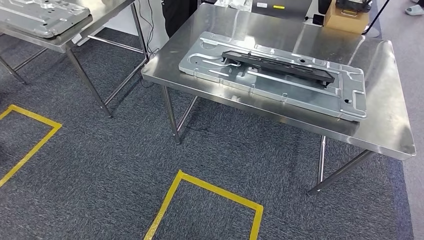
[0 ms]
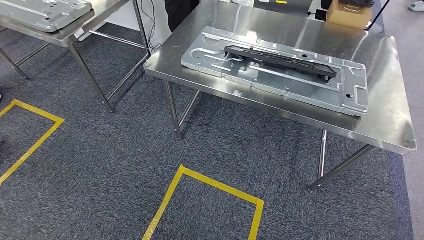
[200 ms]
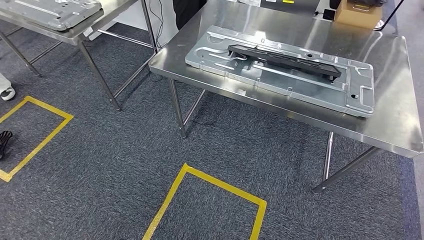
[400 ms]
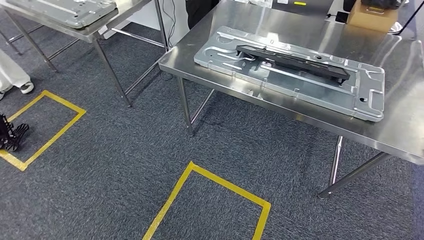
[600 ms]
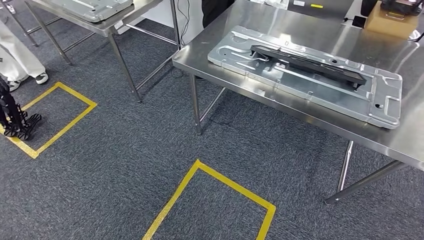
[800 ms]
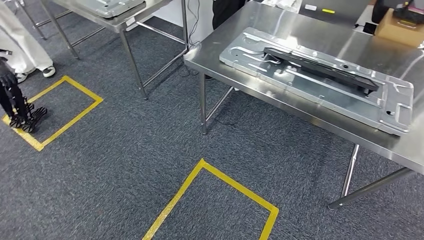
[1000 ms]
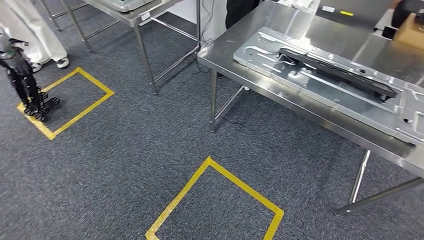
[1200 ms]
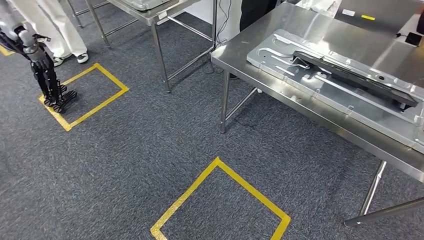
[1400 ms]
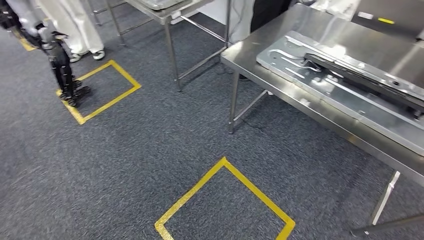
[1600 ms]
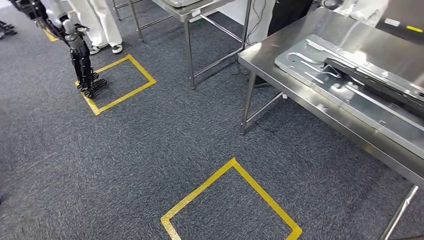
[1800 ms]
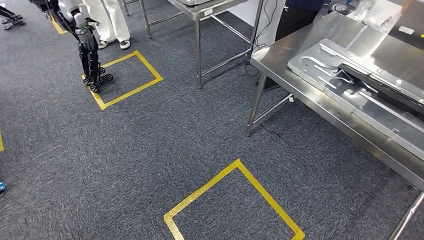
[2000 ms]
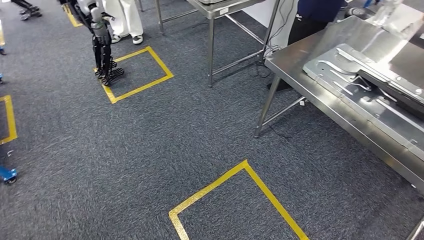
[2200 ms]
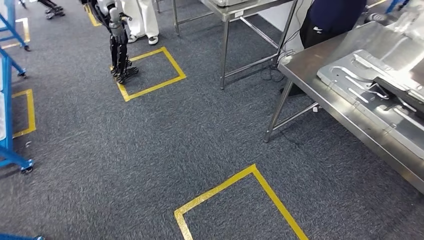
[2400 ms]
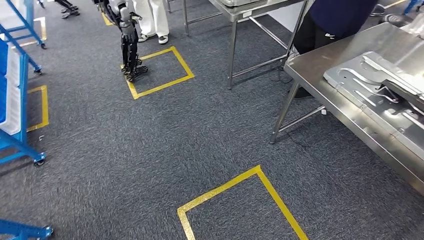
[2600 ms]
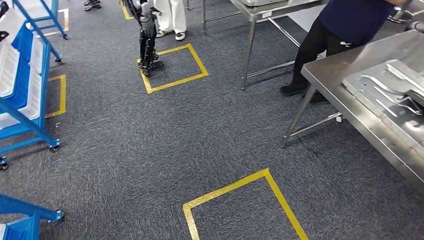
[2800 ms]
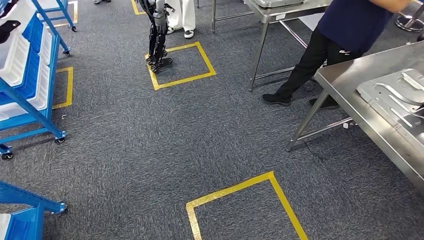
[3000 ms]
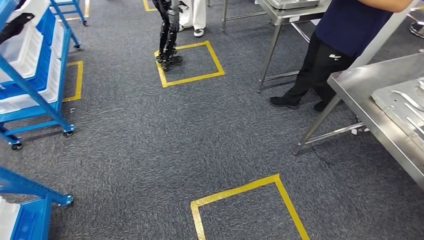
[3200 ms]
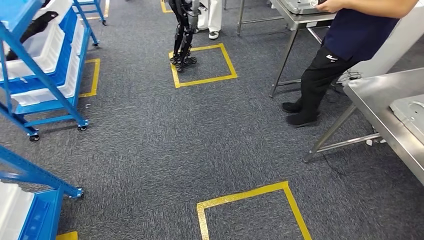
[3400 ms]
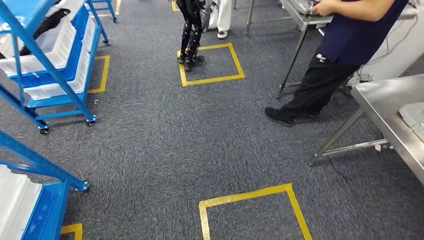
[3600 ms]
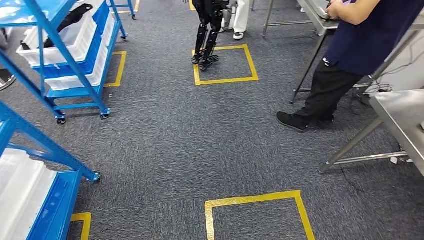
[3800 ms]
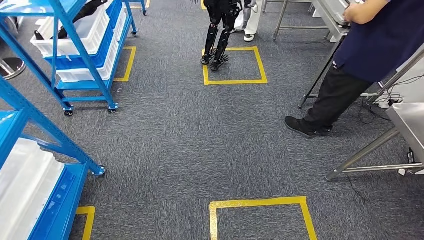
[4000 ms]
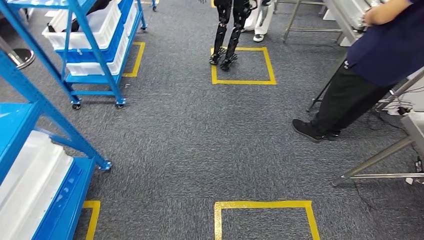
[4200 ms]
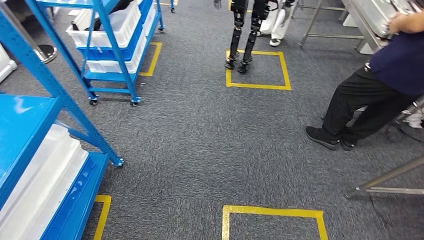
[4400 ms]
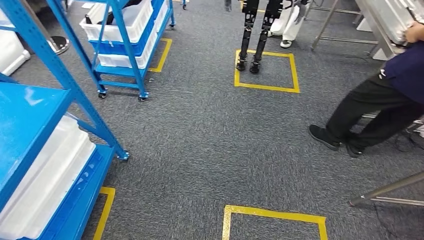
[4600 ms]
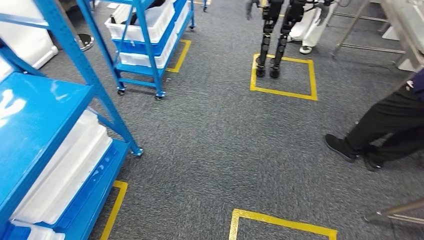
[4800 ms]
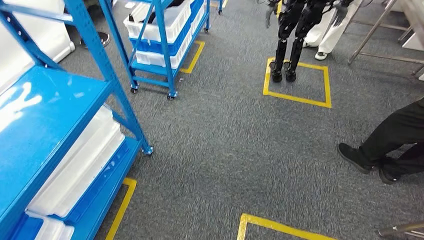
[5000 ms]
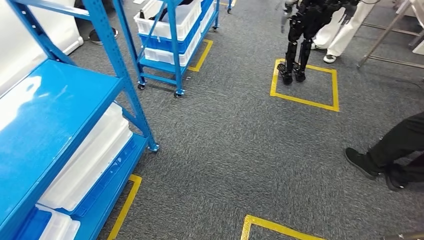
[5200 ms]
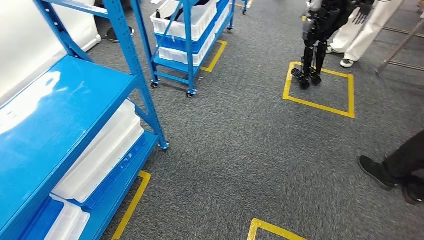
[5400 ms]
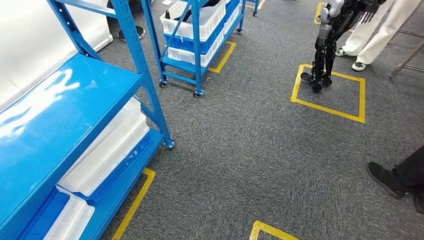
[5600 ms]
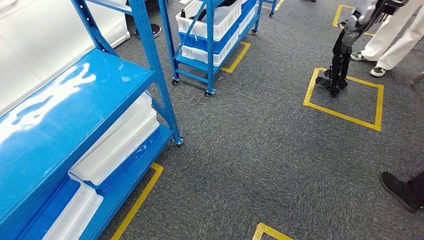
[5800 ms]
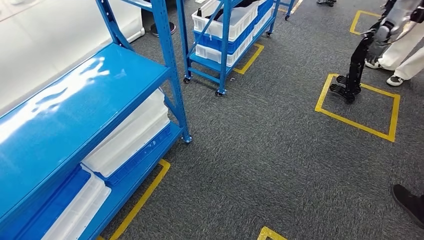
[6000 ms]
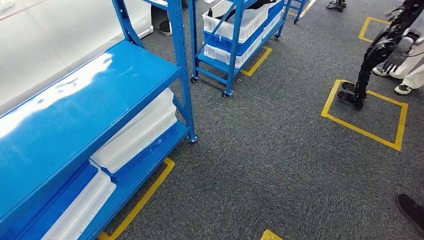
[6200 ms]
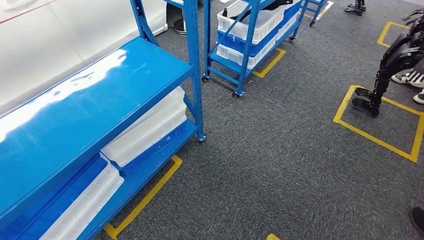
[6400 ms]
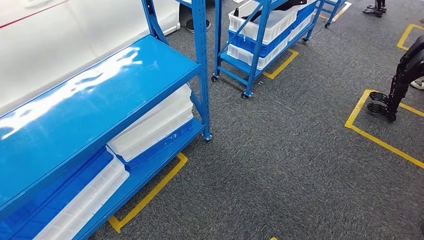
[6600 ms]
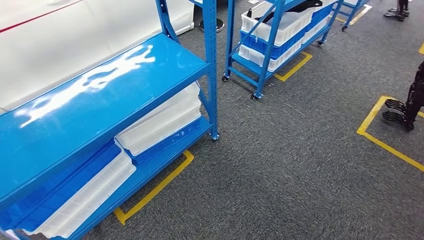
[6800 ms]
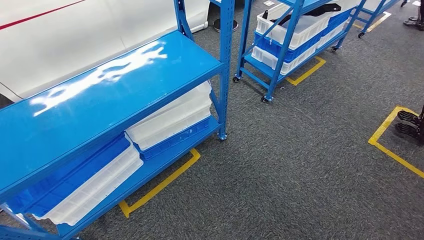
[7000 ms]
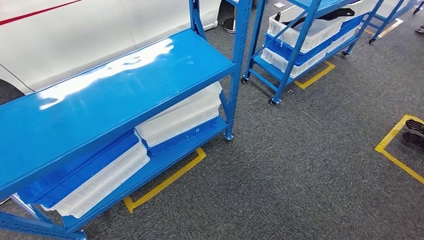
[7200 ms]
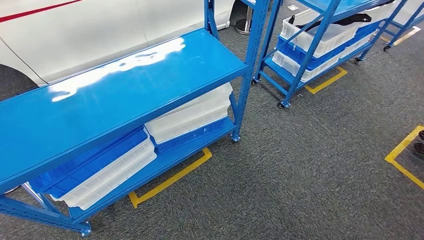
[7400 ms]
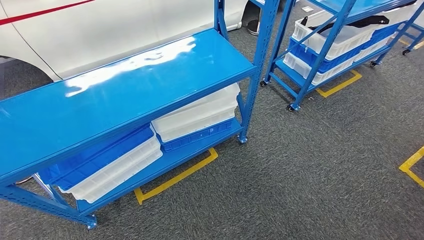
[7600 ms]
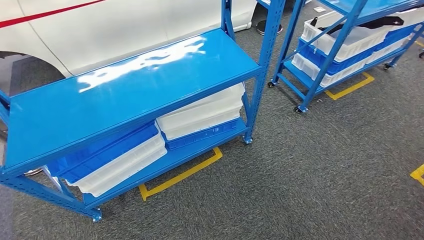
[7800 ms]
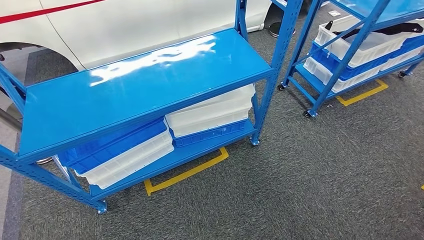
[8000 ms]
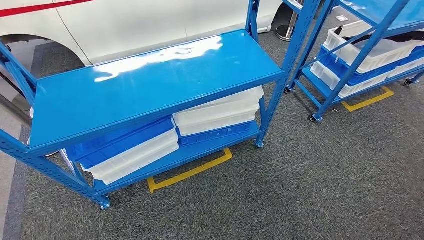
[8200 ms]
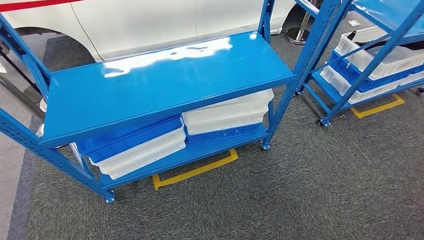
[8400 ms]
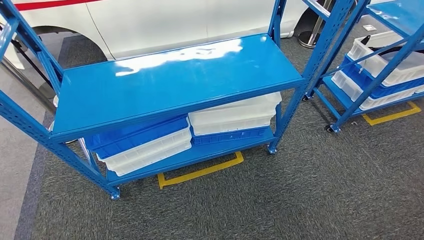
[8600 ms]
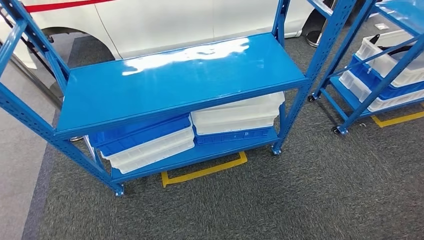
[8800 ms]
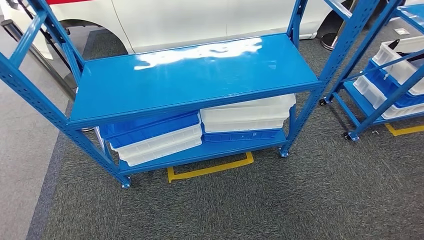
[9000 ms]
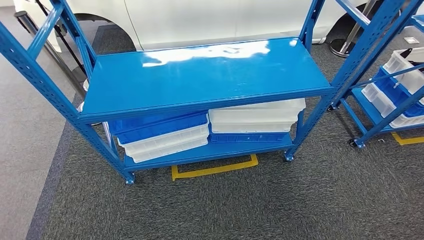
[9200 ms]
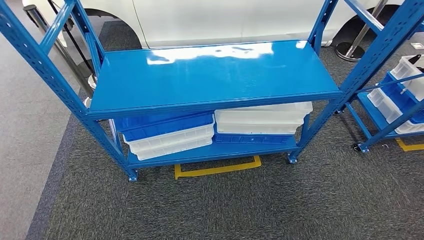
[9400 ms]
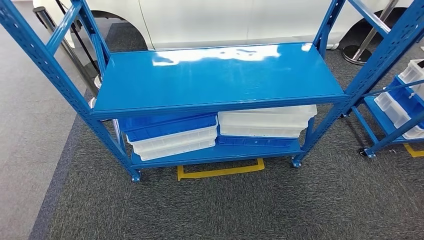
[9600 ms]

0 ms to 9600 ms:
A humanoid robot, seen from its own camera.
Step, 0 ms to 9600 ms: Move to the initial position of the shelf.
